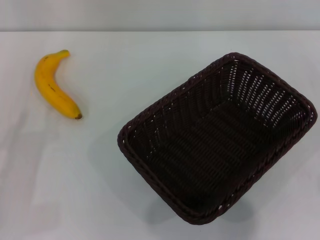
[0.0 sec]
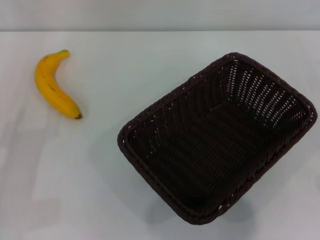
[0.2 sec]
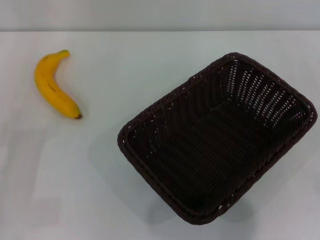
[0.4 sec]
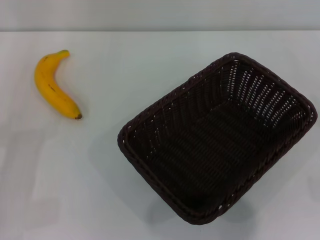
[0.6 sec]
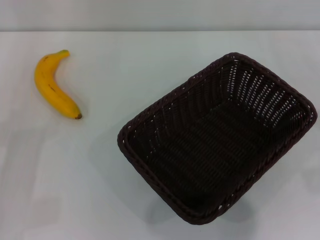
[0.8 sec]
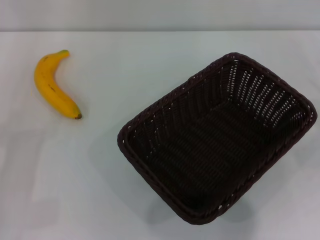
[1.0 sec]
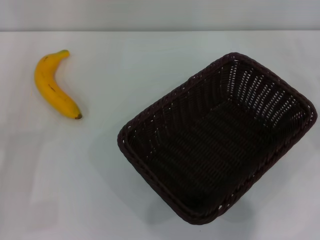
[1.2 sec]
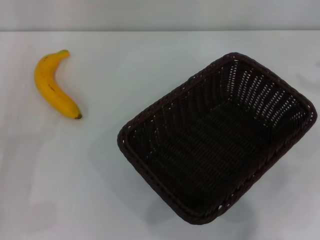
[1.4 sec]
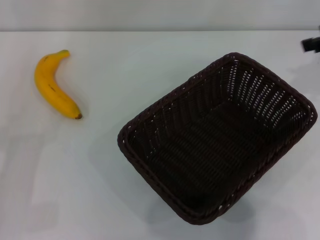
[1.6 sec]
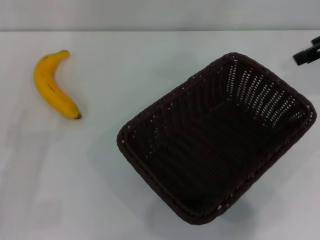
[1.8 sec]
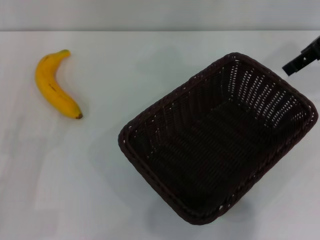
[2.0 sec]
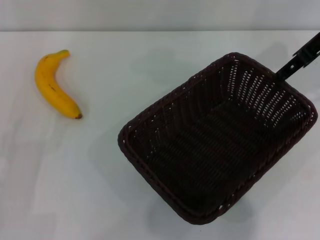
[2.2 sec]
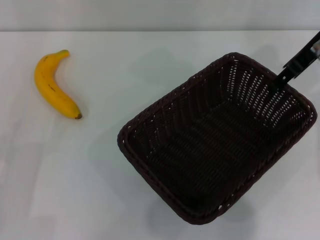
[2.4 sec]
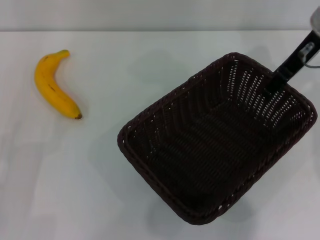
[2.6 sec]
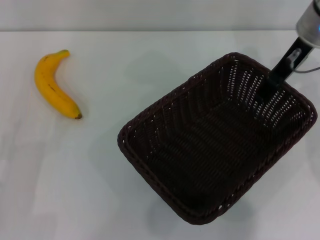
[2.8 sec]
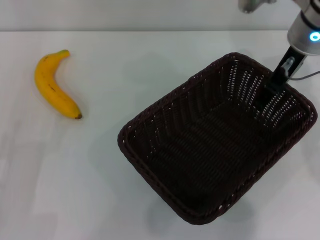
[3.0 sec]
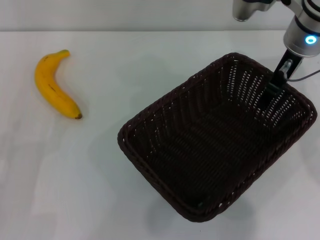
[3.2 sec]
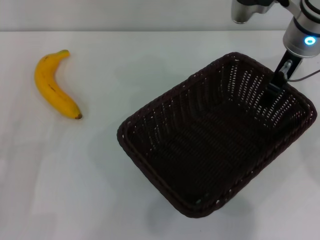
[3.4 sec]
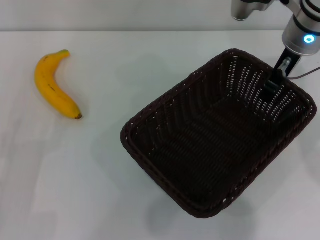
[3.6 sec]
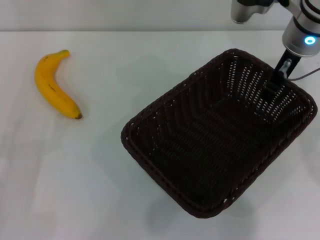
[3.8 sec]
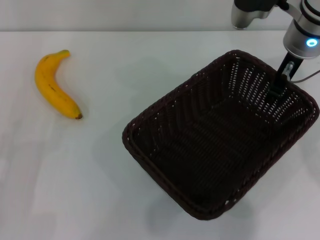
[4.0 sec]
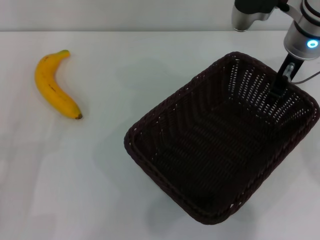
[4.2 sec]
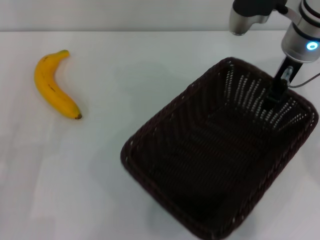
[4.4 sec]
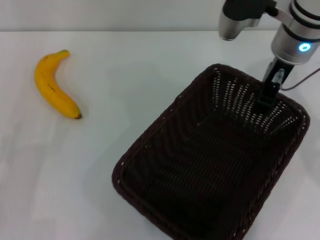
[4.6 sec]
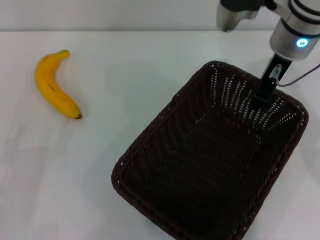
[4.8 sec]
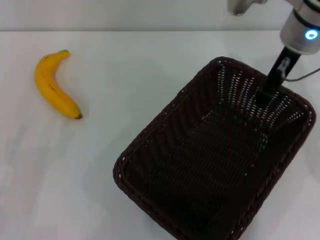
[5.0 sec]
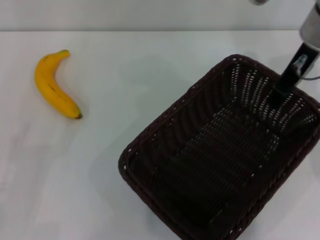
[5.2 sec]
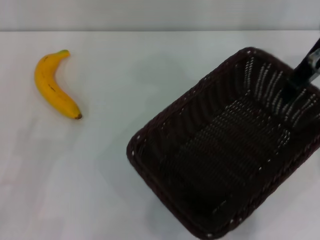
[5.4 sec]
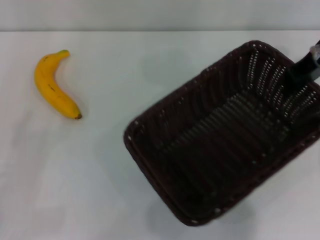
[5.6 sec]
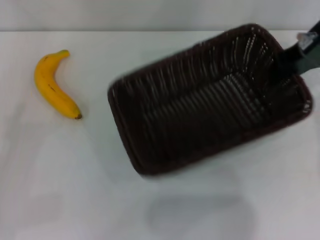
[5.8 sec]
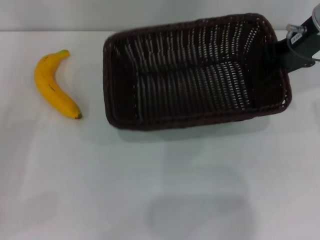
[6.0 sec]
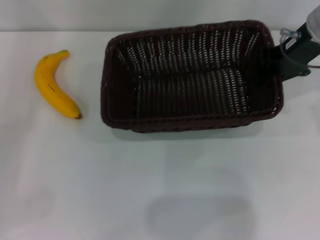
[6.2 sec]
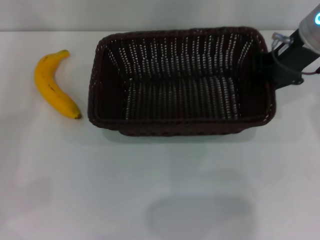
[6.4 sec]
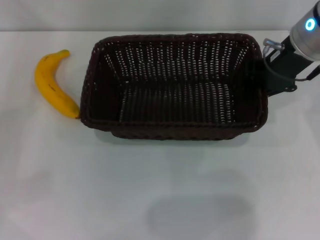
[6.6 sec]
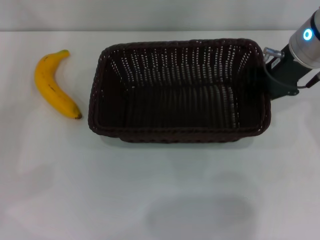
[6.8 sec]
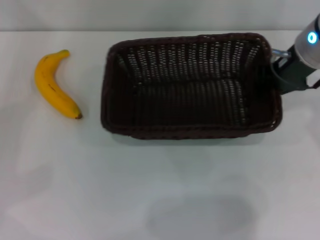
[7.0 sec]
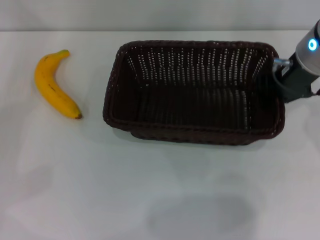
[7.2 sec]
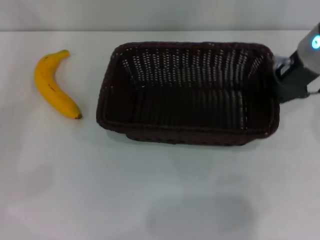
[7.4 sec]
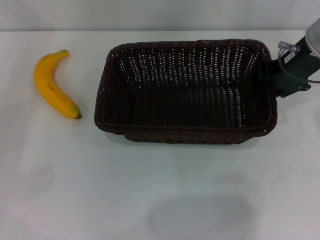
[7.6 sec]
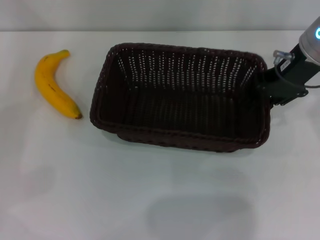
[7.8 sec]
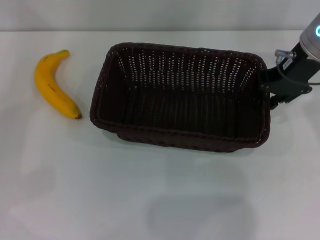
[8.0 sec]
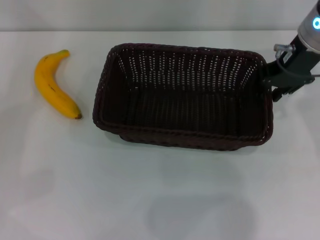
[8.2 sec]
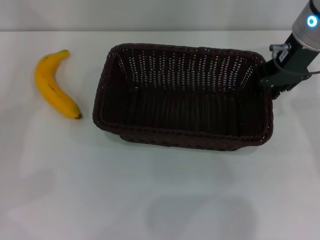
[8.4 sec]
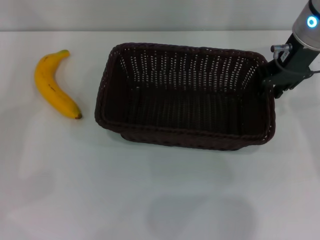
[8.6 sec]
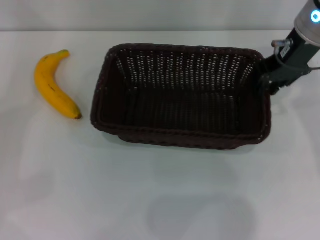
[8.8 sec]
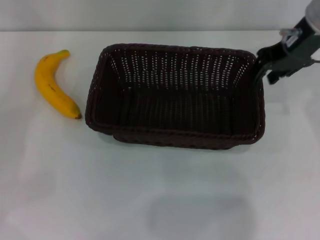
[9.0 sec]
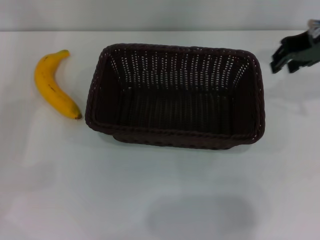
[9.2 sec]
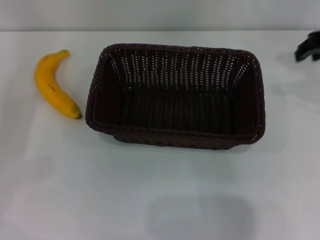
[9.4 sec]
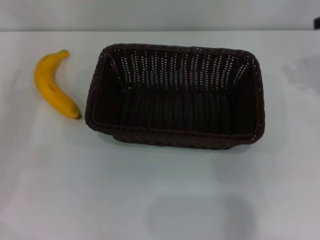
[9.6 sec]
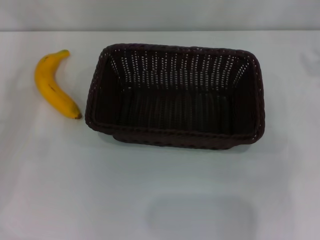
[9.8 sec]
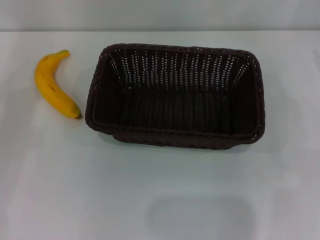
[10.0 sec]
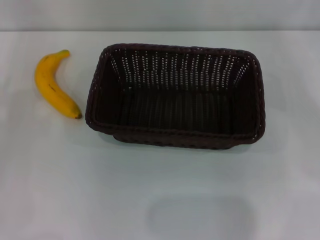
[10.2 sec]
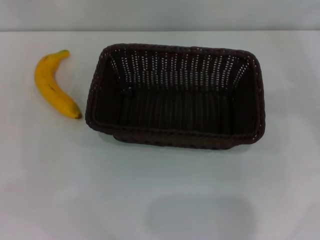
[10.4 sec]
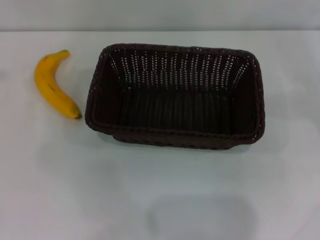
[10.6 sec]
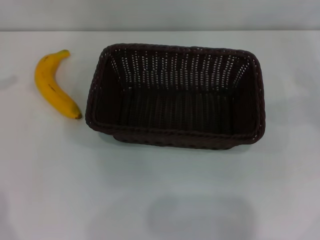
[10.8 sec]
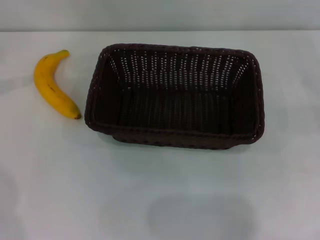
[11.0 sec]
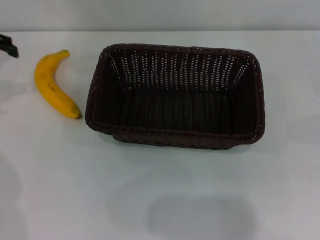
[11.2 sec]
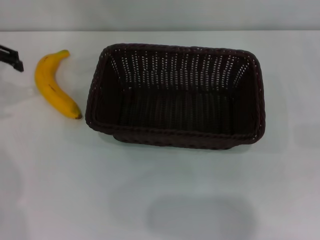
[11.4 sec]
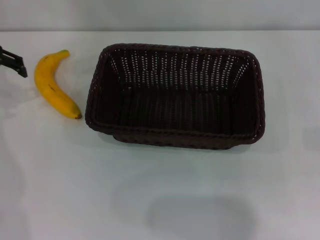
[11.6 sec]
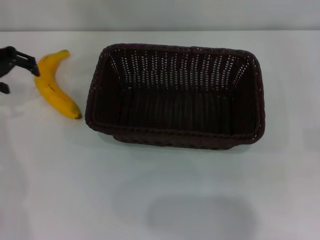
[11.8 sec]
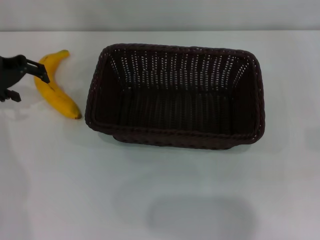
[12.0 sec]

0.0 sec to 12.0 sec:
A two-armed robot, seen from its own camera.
Step, 0.0 sec to 5.6 sec: Pick up the dark basket with the right gripper.
Step, 5.8 sec to 9.2 sec: Place the dark basket in the center of view with the right gripper.
1.6 sec to 3.0 sec: The right gripper goes roughly 15 cm to the left.
3.0 sec to 4.4 sec: The right gripper closes up.
4.4 sec to 6.0 sec: The right gripper changes place by roughly 5 cm, while the left gripper moves to the left and upward, about 10 cm.
6.0 sec to 7.6 sec: The left gripper changes place by roughly 5 cm.
7.6 sec to 9.0 sec: The grippers move only a little.
9.0 sec to 10.4 sec: The right gripper shifts some 25 cm to the right and downward.
10.4 sec to 12.0 sec: The left gripper goes about 15 cm to the right and forward.

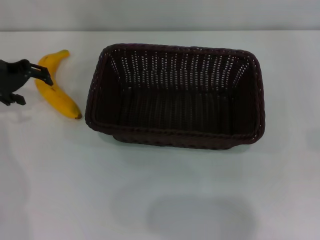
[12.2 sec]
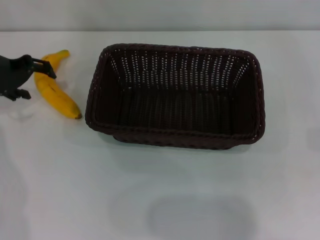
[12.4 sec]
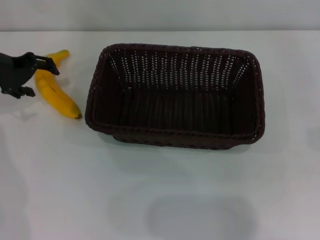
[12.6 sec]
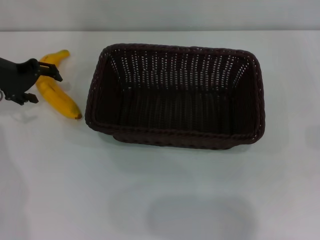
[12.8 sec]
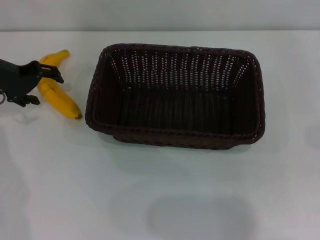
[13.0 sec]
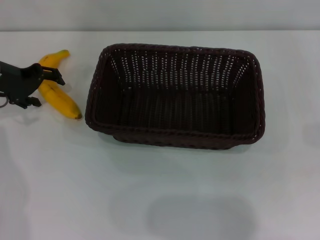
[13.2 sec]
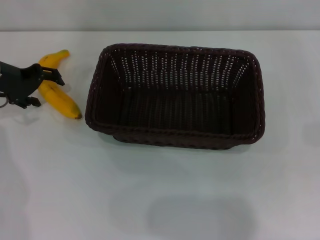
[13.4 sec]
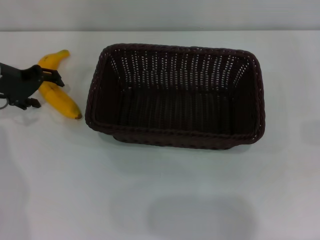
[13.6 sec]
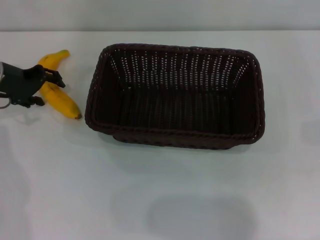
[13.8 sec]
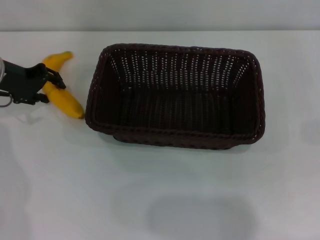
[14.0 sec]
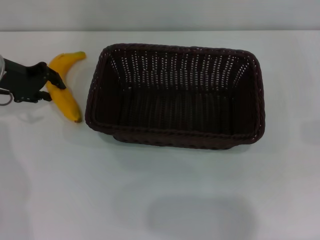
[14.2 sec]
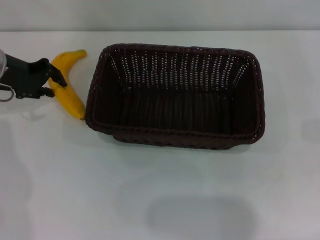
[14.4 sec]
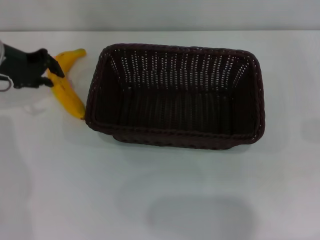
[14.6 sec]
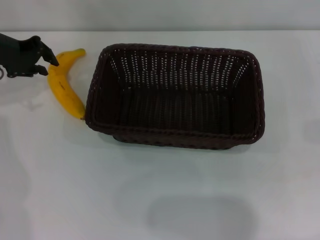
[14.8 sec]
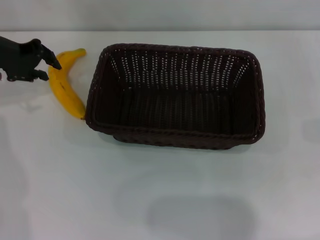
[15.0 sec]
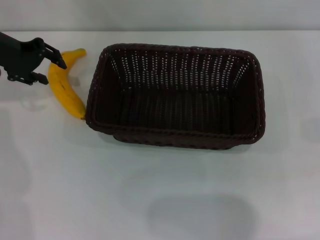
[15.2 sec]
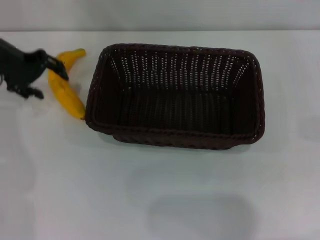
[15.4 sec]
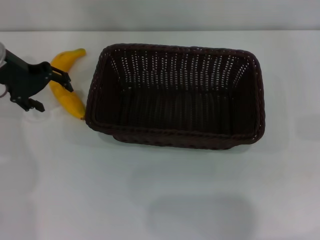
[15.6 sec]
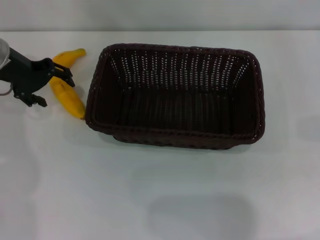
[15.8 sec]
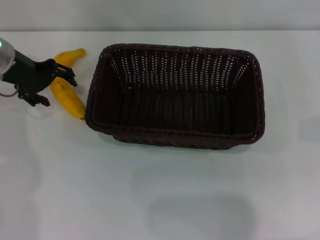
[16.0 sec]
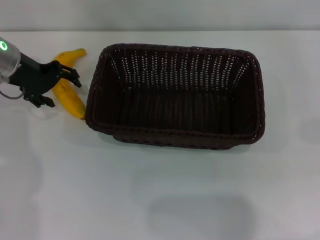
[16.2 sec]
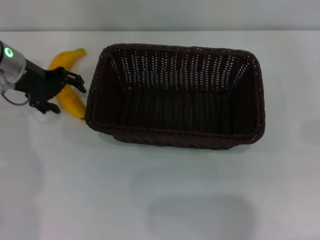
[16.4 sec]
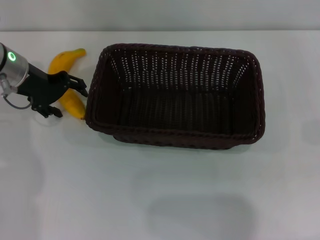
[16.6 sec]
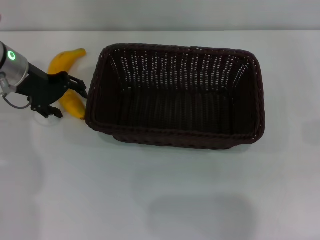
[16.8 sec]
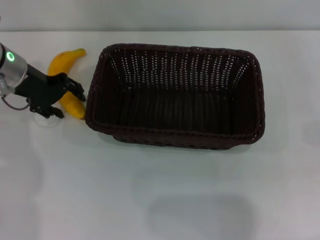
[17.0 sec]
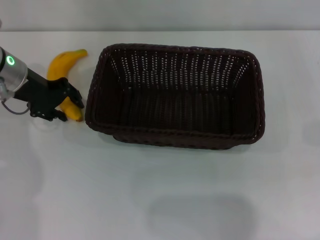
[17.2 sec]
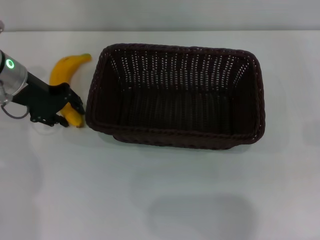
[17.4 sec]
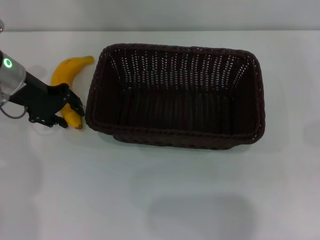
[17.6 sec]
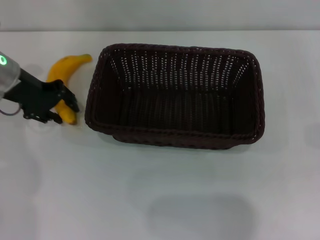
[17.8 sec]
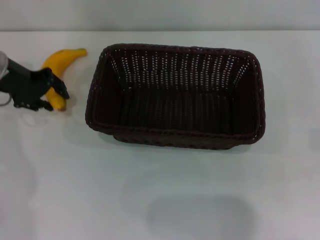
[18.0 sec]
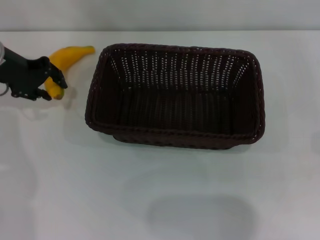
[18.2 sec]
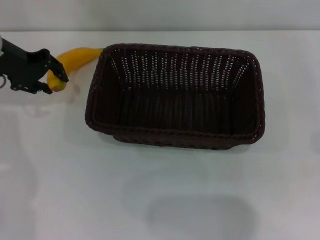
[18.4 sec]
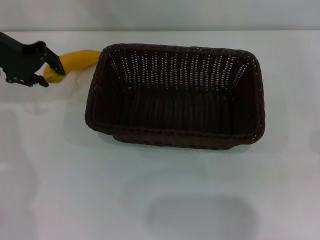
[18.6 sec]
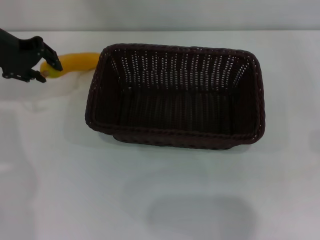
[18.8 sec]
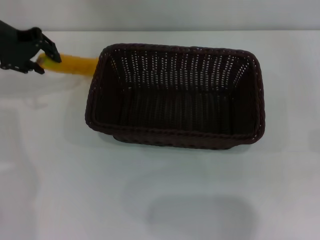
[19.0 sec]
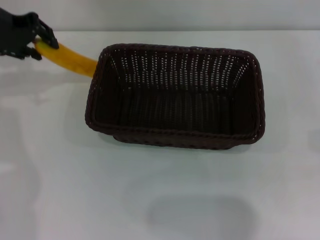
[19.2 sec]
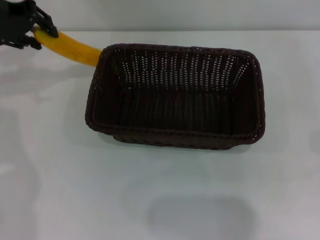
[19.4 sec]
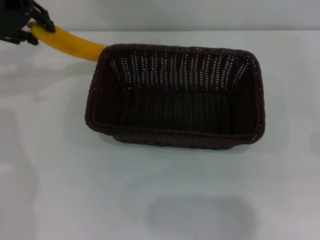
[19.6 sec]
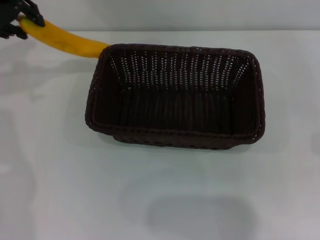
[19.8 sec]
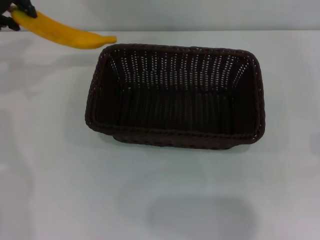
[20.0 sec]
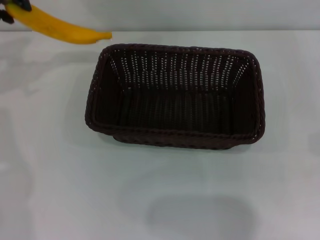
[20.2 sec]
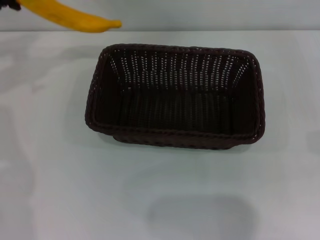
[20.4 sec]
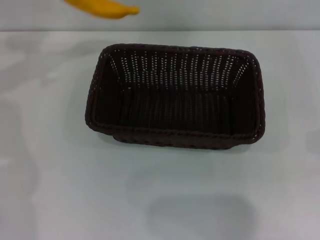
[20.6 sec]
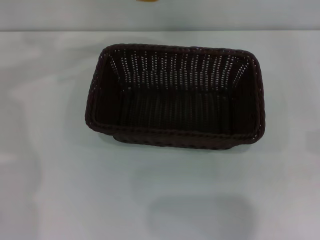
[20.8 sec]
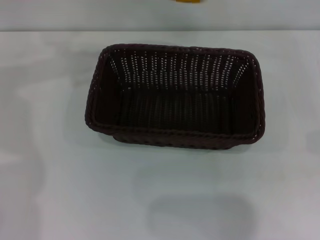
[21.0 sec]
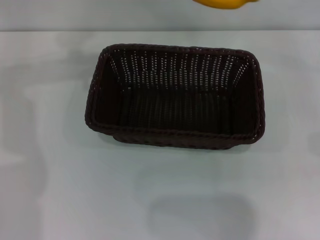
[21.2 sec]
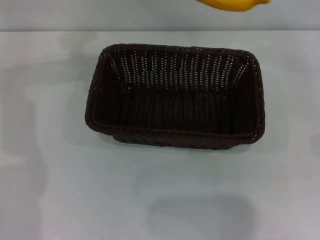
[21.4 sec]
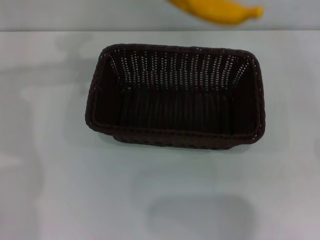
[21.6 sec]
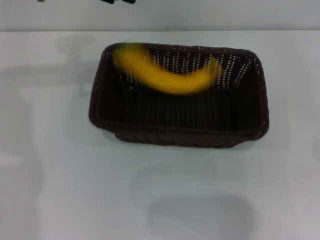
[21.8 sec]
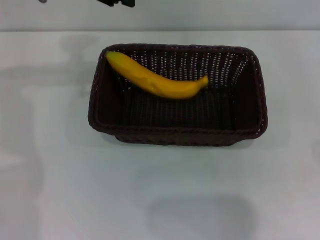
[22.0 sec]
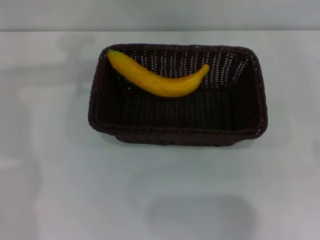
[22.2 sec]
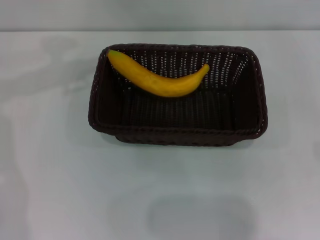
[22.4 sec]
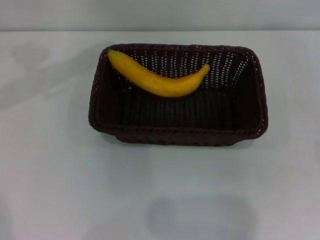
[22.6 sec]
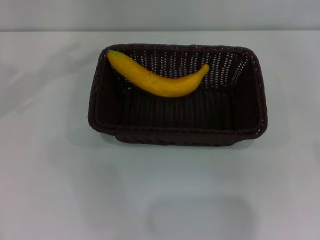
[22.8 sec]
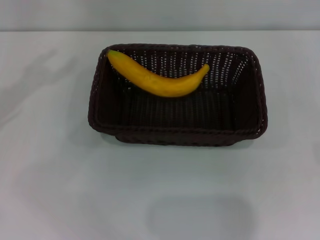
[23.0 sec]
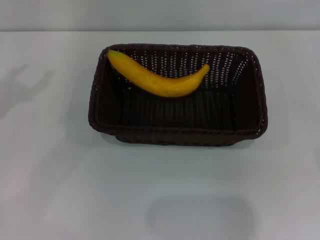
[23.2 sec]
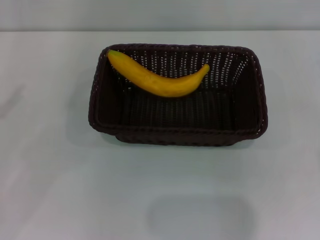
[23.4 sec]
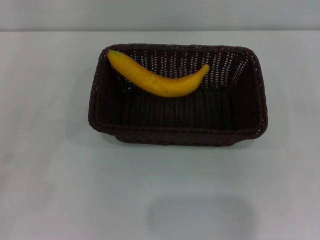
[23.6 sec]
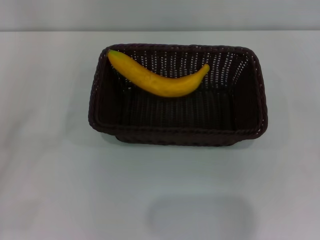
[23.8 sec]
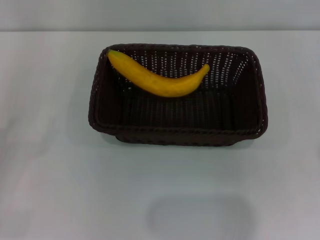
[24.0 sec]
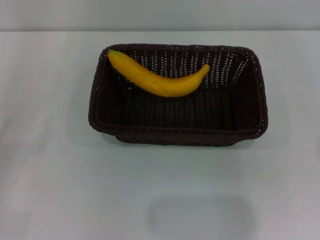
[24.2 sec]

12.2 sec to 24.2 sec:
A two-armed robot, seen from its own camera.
Step, 12.2 sec to 20.2 sec: Pick up the banana with the left gripper.
Step, 20.4 sec to 21.8 sec: Place the banana into the dark basket with the left gripper.
12.2 sec to 13.8 sec: The grippers stay close to where they were, moving slightly.
13.8 sec to 15.2 sec: The left gripper moves upward, about 5 cm, and closes up.
15.2 sec to 16.6 sec: The left gripper moves about 5 cm, and opens its fingers.
16.6 sec to 18.2 sec: The left gripper closes its fingers.
18.2 sec to 19.8 sec: The left gripper heads upward, covering some 10 cm.
19.8 sec to 21.2 sec: The left gripper travels to the right and upward by approximately 10 cm.
21.2 sec to 22.6 sec: The left gripper goes approximately 10 cm to the left, and opens up.
